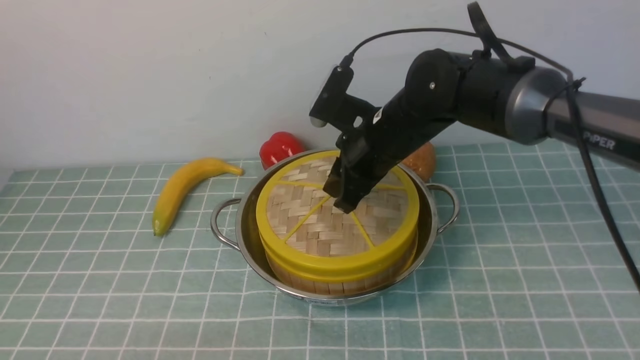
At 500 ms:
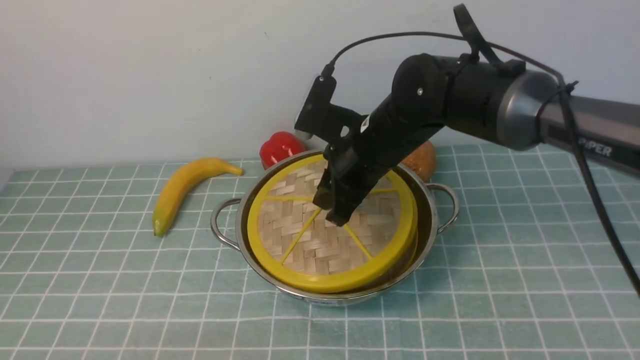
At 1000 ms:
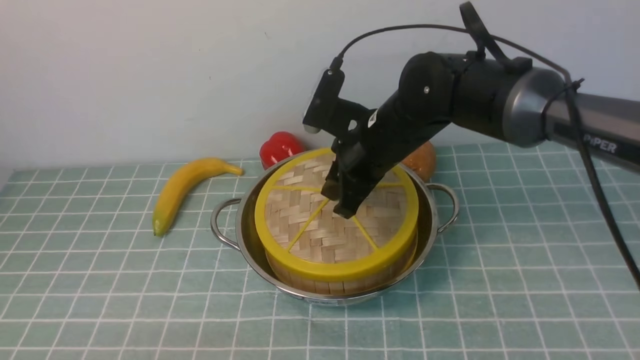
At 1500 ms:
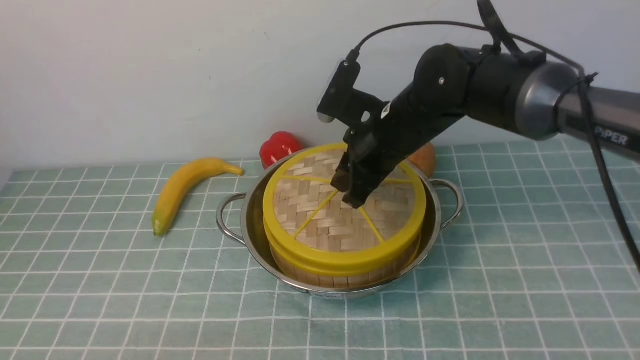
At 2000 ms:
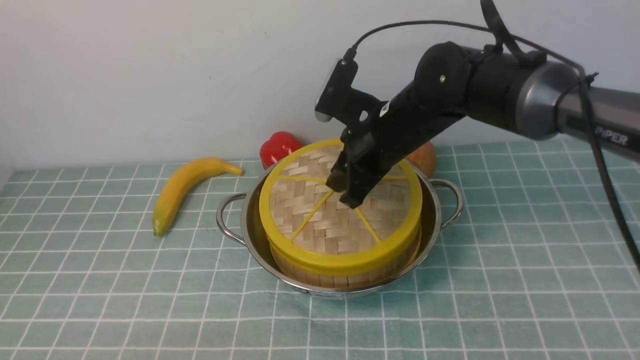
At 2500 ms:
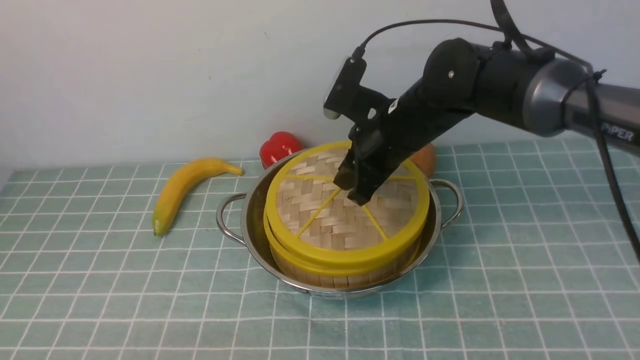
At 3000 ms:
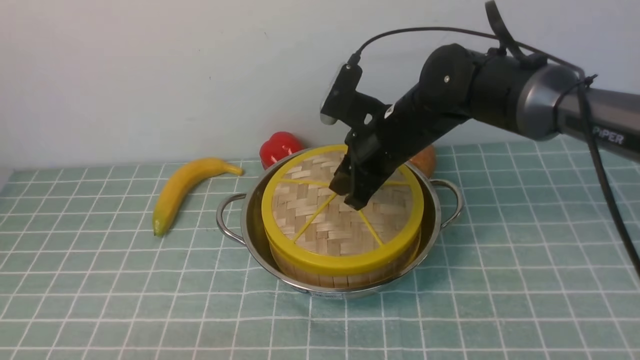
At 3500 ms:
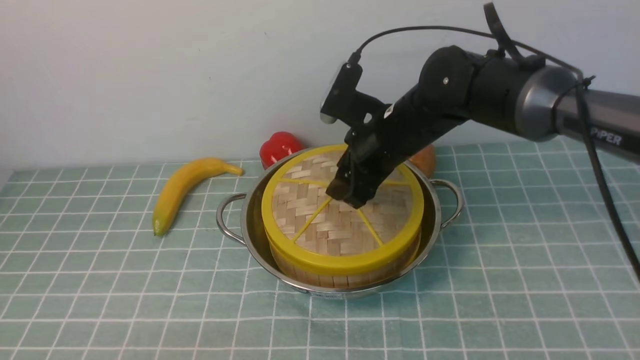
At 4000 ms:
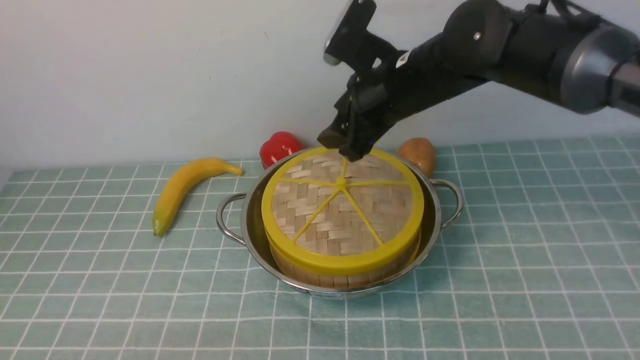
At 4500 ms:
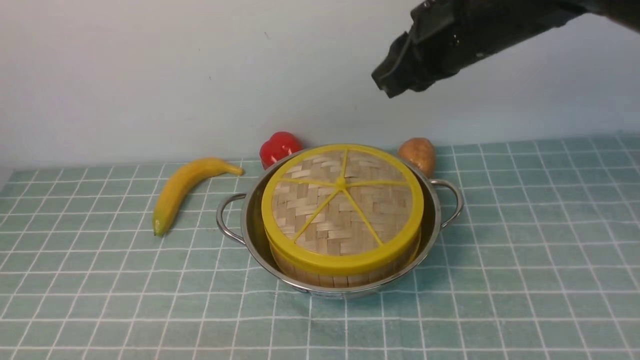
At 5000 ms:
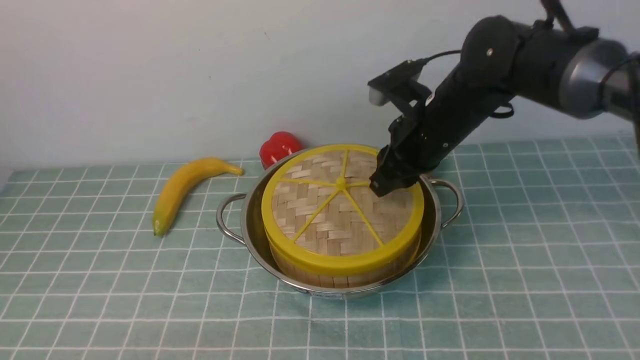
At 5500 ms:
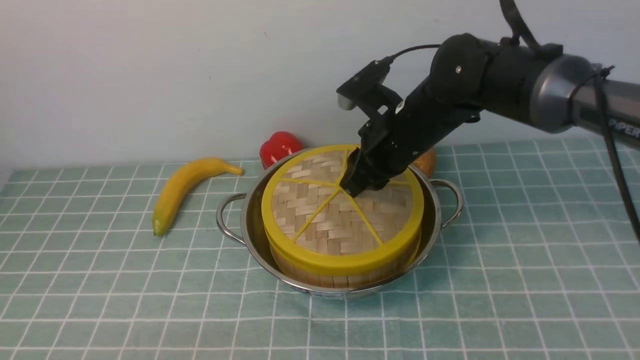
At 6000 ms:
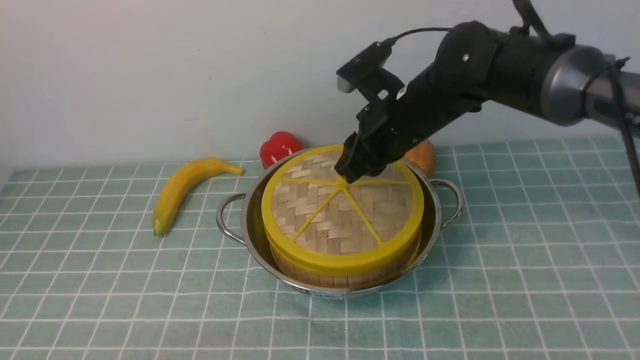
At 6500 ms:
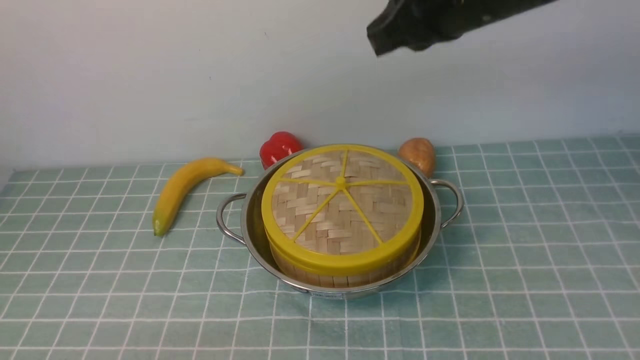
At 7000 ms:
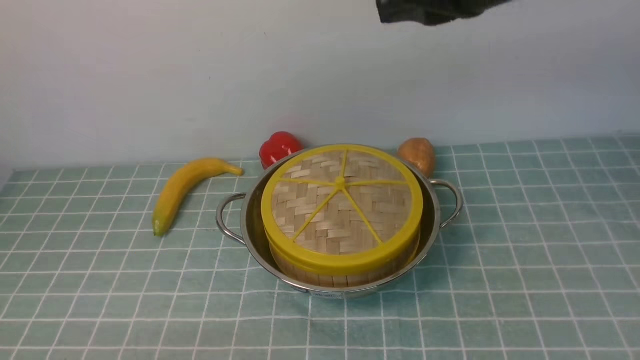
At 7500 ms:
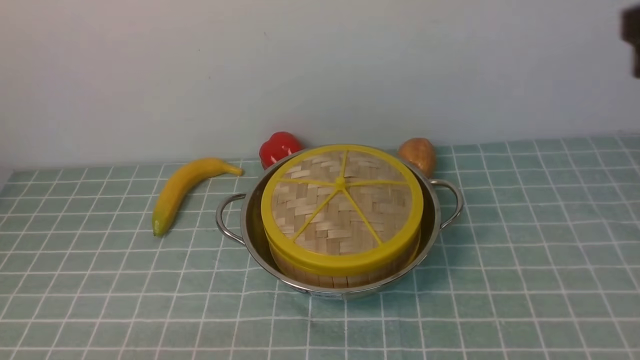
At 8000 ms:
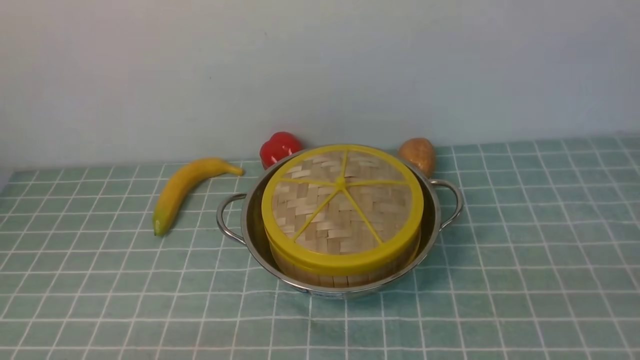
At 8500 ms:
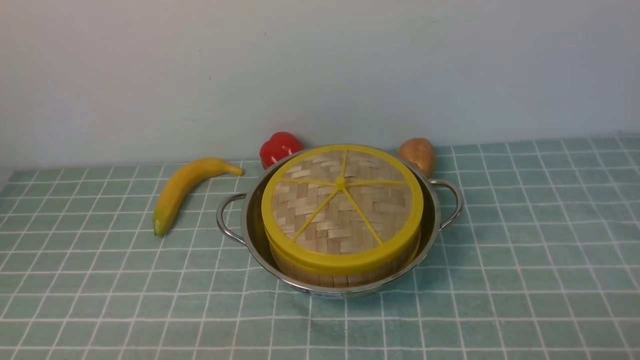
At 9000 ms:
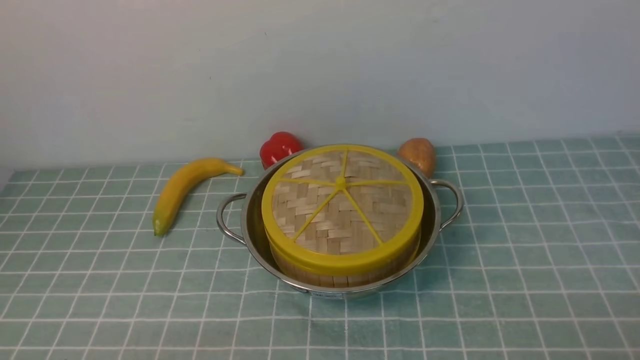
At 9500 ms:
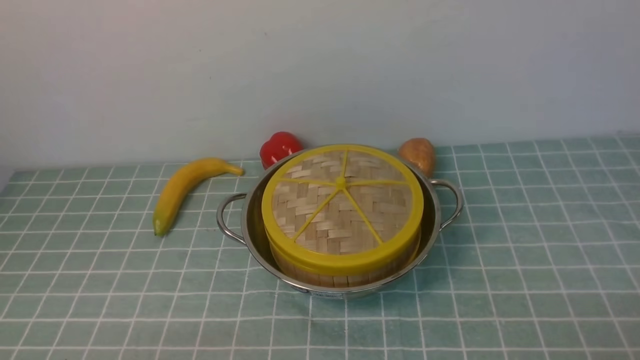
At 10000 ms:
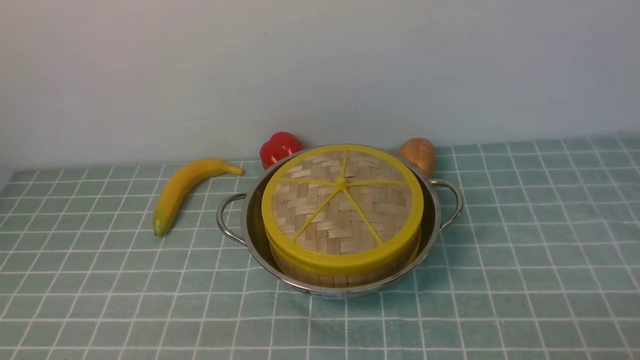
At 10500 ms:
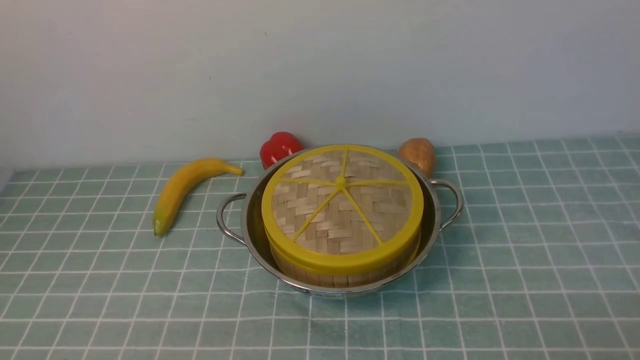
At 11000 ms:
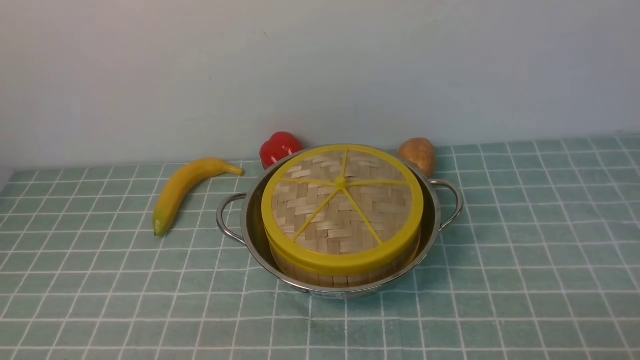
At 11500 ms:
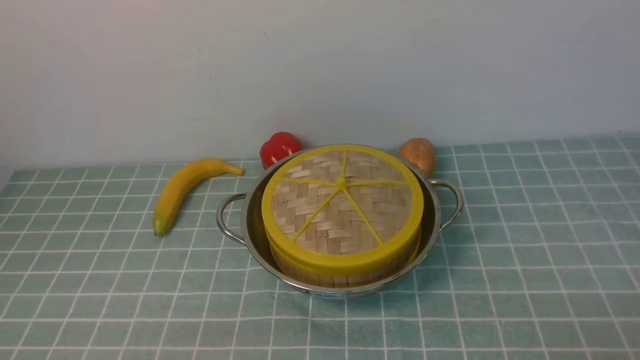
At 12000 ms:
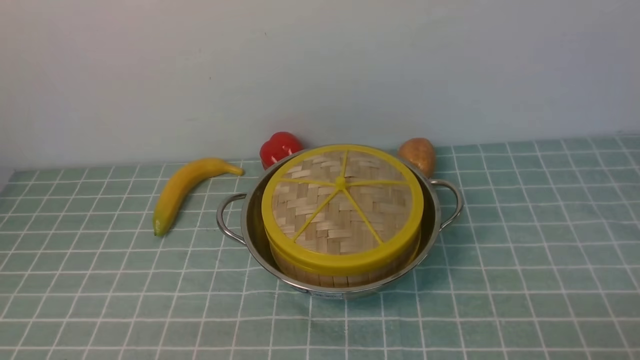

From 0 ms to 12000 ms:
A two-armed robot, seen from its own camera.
Task of the whole recording: place the steamer in the pot on the blue tablecloth, and put the lid on the steamer.
Step, from 0 ms to 4000 ms: use the right arm to place the steamer lid on the steamer.
From 0 ms to 2000 ms: Neither gripper changes place.
From 2000 ms to 4000 ms: The right gripper travels upward by roughly 5 cm, and opens its fingers.
From 4000 ms to 6000 ms: The right gripper moves some 5 cm downward and comes back, and closes up.
From 6000 ms to 8000 ms: The right gripper is displaced backward and to the right by some 40 cm.
From 10000 ms to 12000 ms: The two grippers keep their place.
